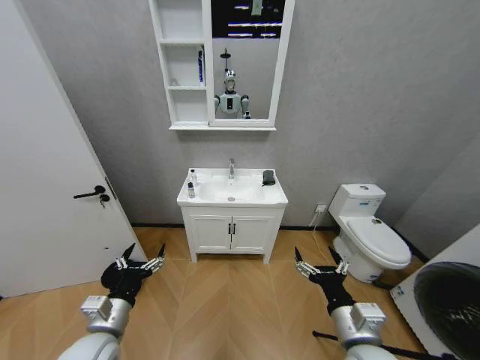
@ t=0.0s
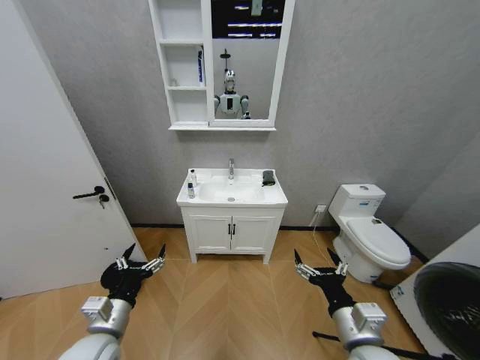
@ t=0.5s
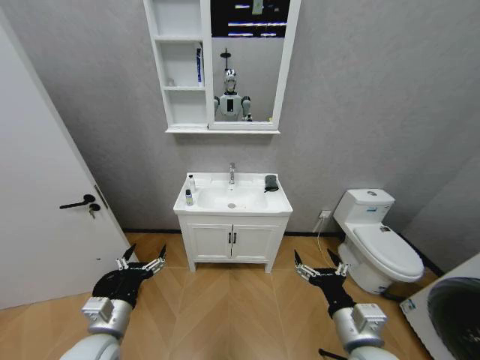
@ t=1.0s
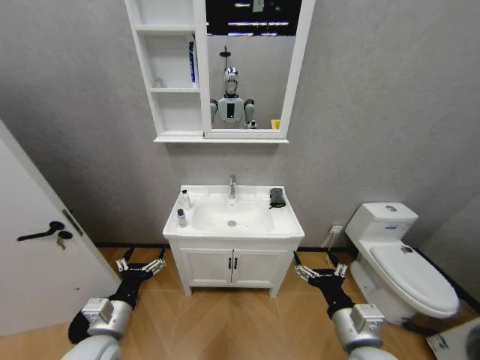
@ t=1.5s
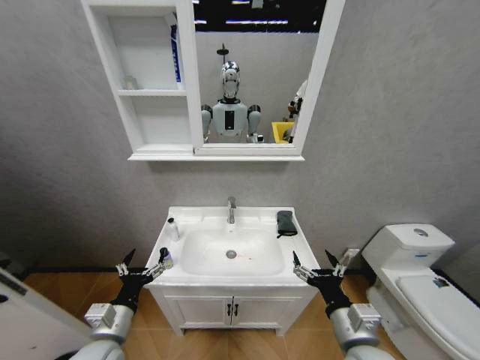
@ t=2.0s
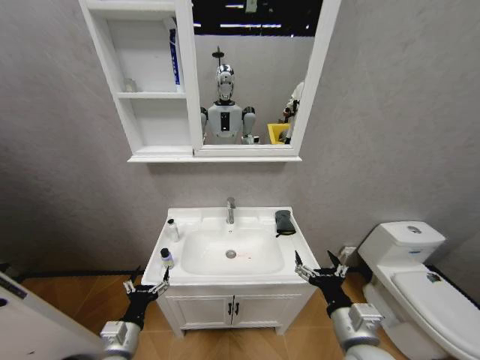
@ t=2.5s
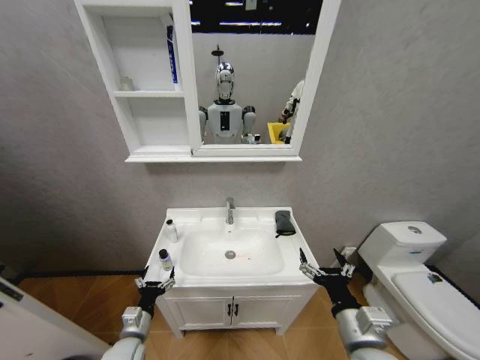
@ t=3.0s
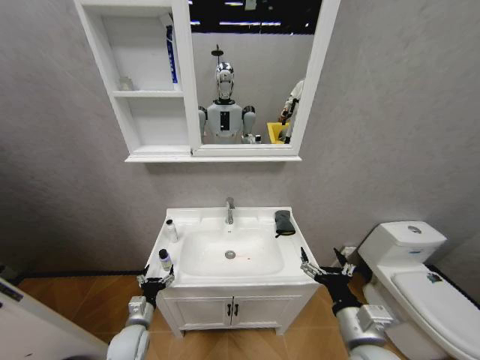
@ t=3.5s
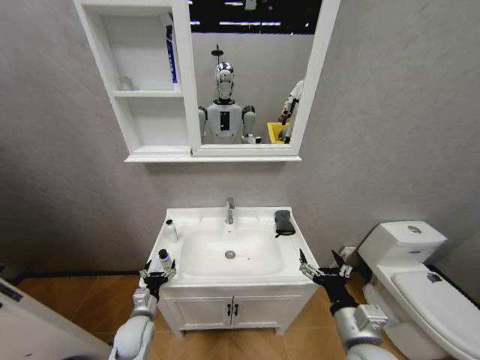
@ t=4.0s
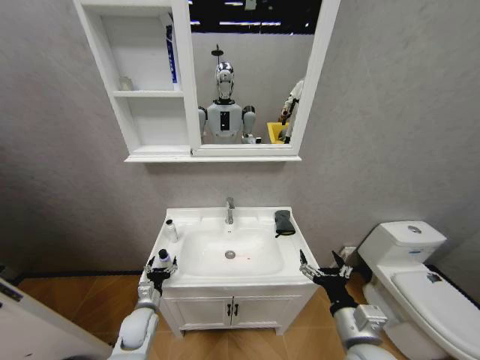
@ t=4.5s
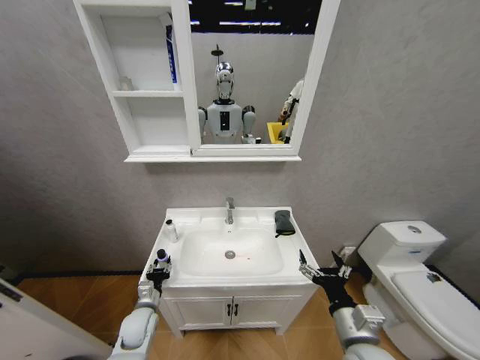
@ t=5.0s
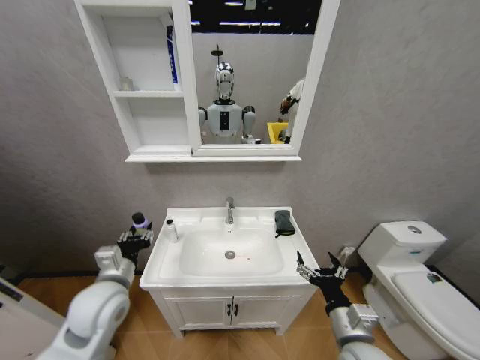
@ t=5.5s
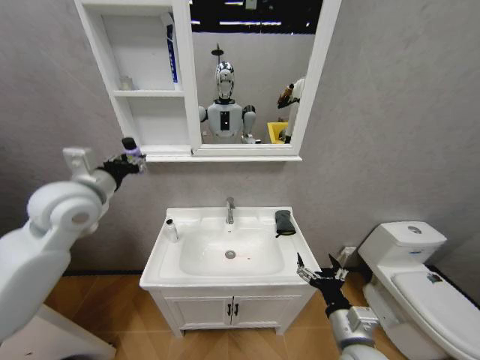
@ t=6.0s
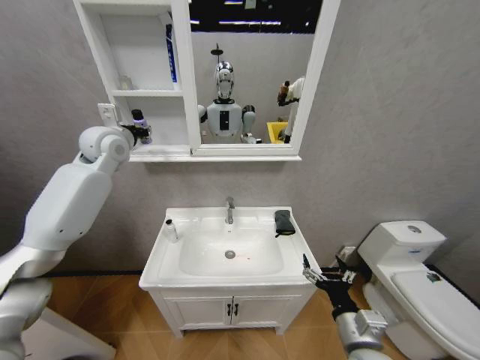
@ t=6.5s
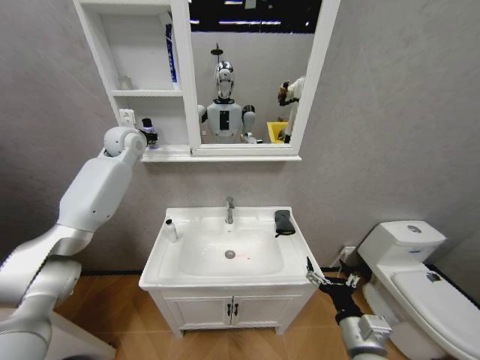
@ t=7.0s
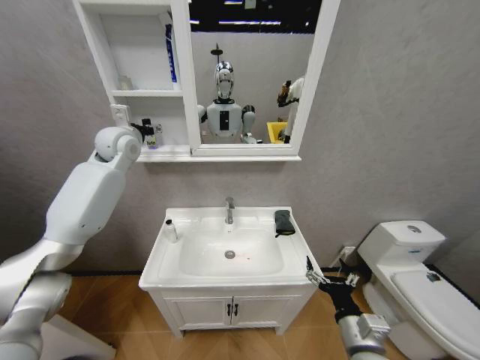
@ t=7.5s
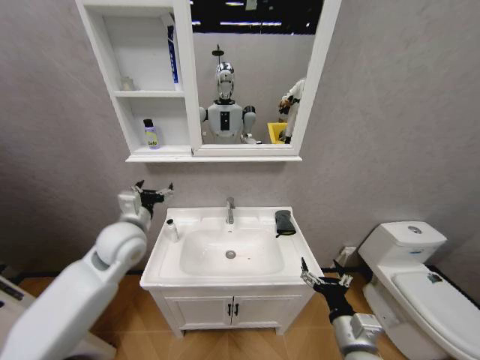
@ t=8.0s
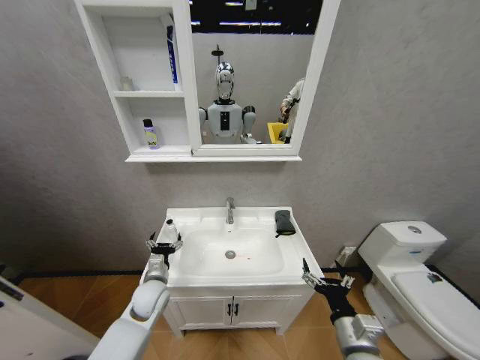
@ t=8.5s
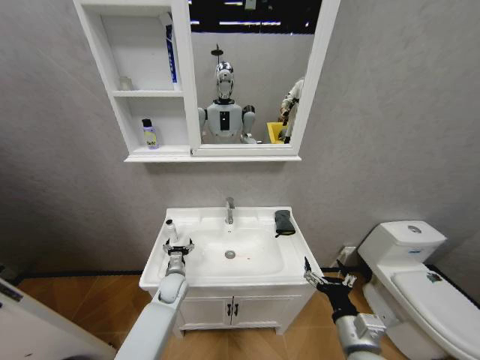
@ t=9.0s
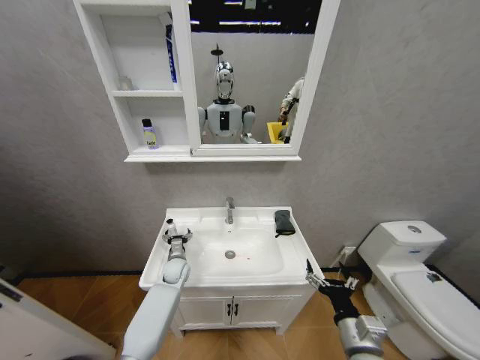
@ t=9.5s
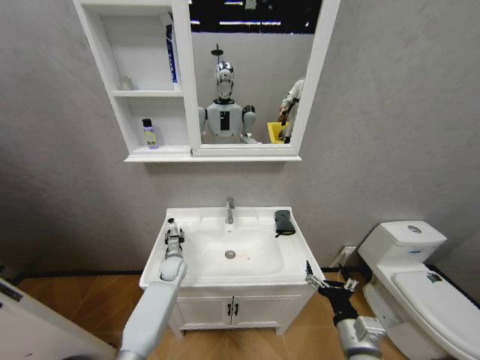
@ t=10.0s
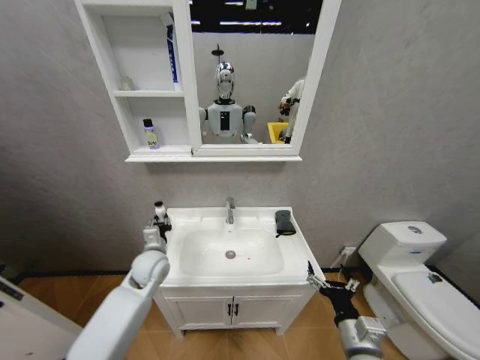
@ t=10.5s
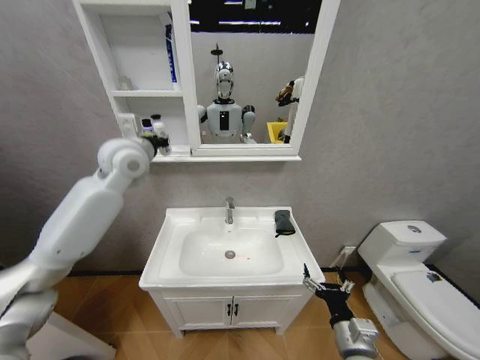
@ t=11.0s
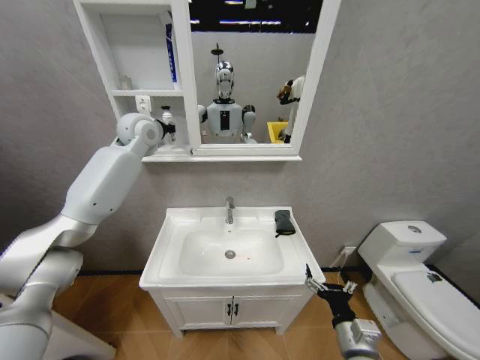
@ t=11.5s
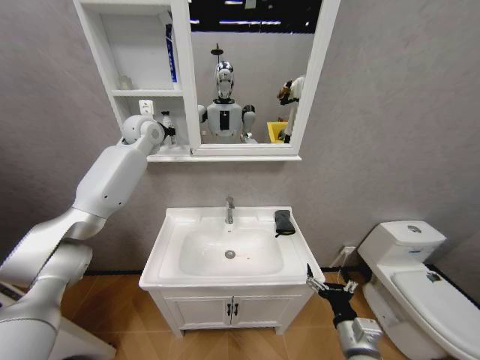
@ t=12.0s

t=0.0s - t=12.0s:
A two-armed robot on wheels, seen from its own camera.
Task of the whole recording: Move facial cleanser and shampoo from washbasin to cabinet, then wipe washbasin with towel.
t=2.0s - t=4.0s: The left gripper travels downward and forward by about 15 cm.
t=4.0s - t=6.0s: The left gripper travels upward by about 40 cm, and closes its fingers.
t=6.0s - t=8.0s: The left gripper travels downward and to the right by approximately 10 cm, reaches roughly 25 cm forward, then returns, and opens up.
t=8.0s - t=10.0s: The left gripper heads downward, covering about 30 cm, and closes up.
t=10.0s - t=12.0s: The left gripper is displaced upward by about 50 cm.

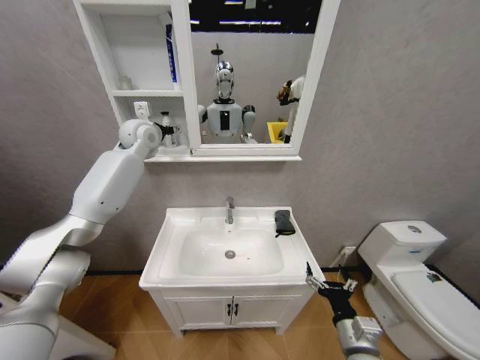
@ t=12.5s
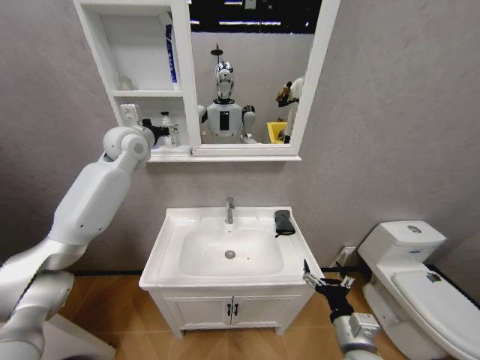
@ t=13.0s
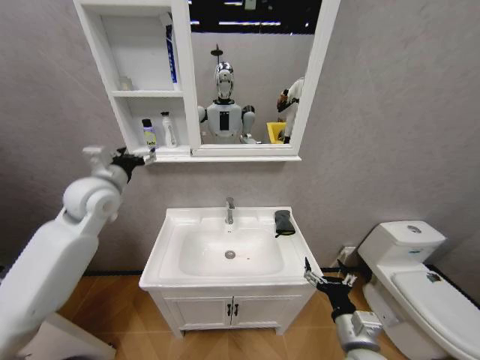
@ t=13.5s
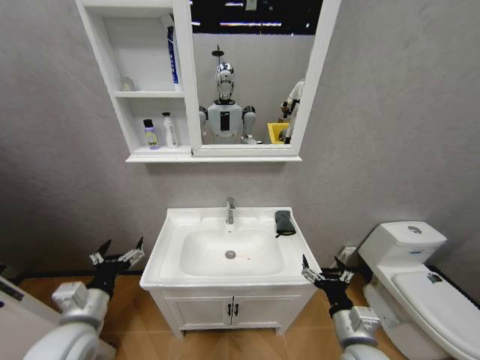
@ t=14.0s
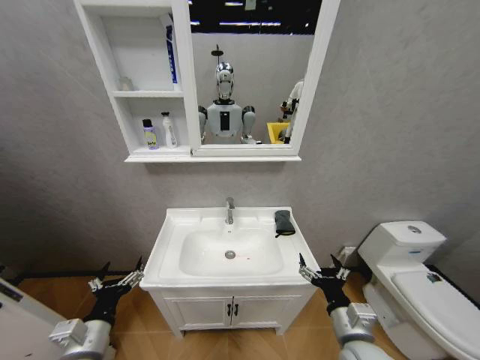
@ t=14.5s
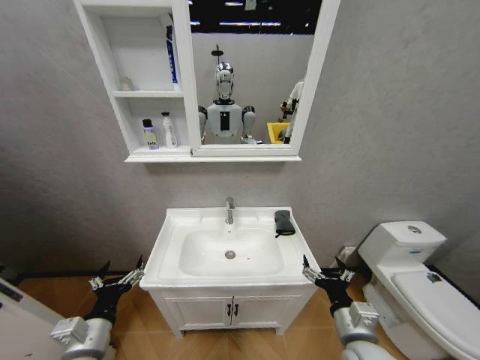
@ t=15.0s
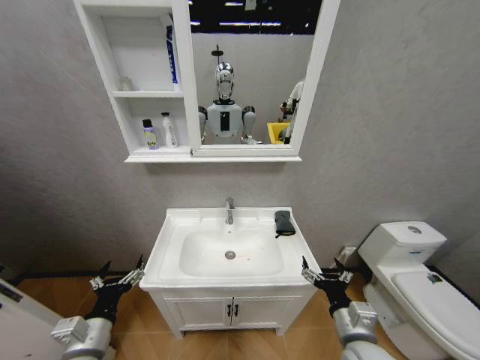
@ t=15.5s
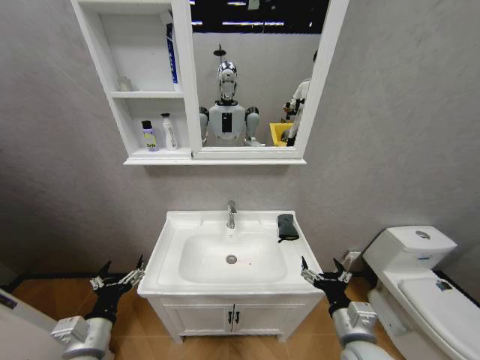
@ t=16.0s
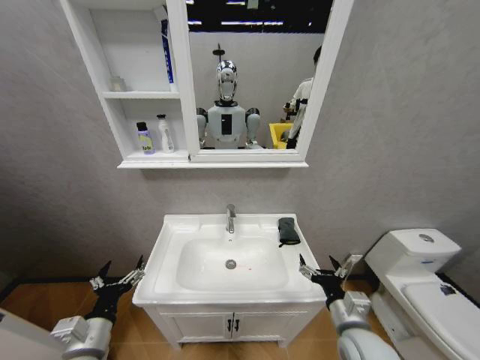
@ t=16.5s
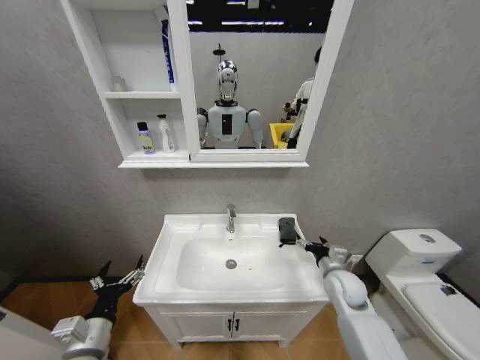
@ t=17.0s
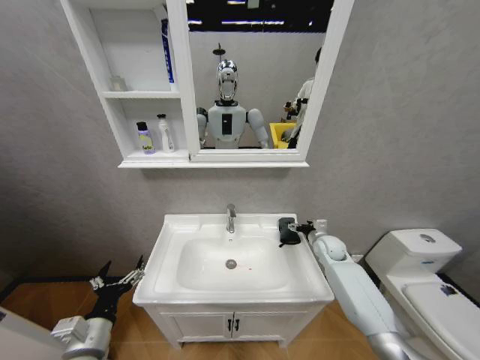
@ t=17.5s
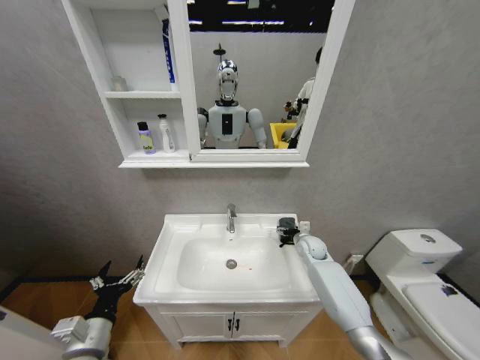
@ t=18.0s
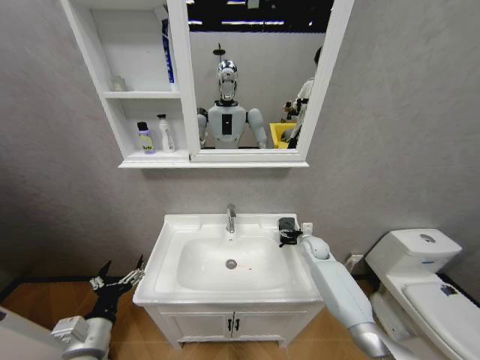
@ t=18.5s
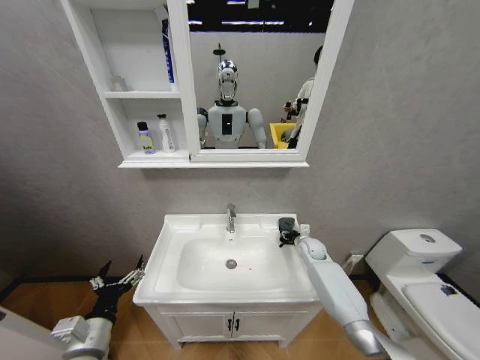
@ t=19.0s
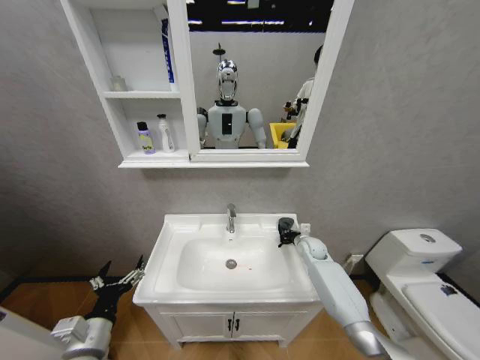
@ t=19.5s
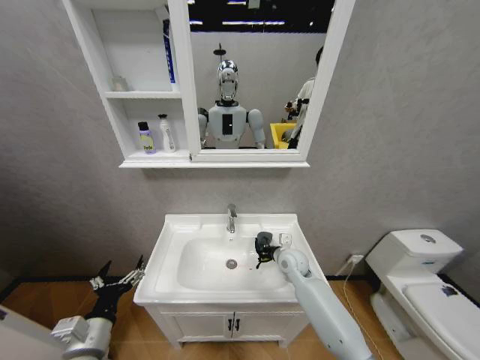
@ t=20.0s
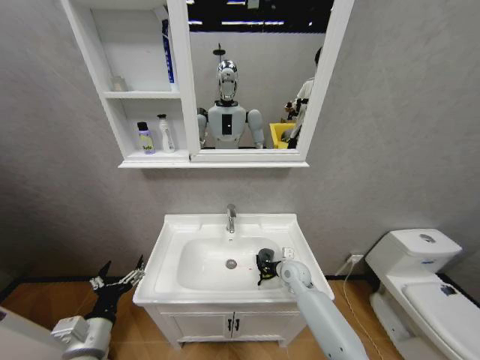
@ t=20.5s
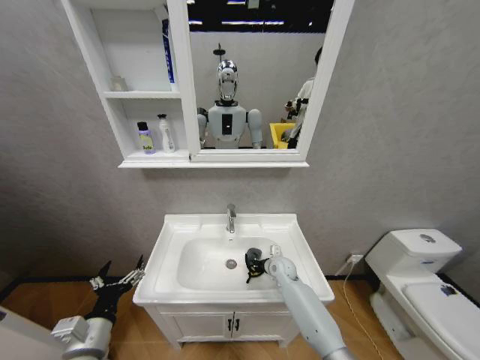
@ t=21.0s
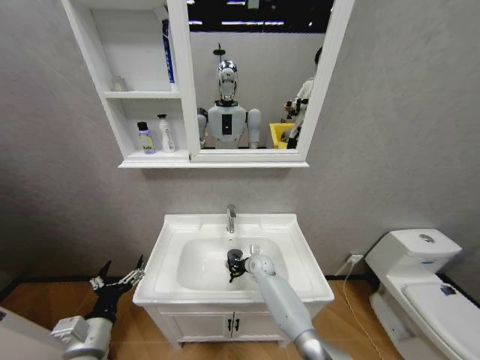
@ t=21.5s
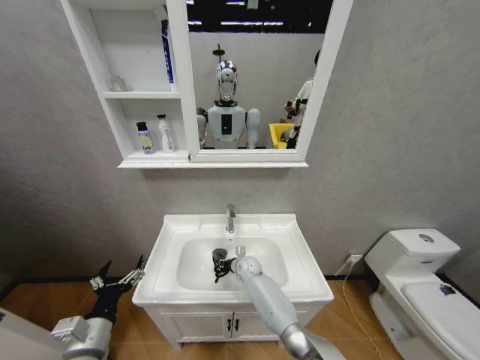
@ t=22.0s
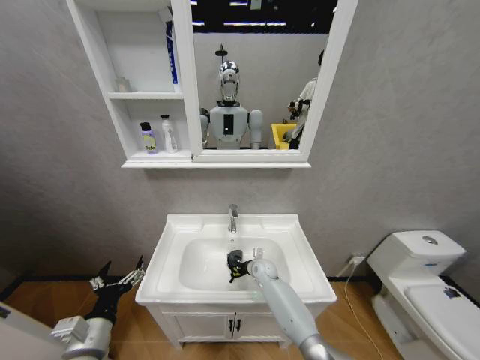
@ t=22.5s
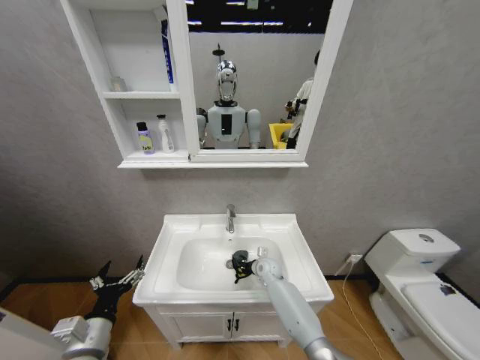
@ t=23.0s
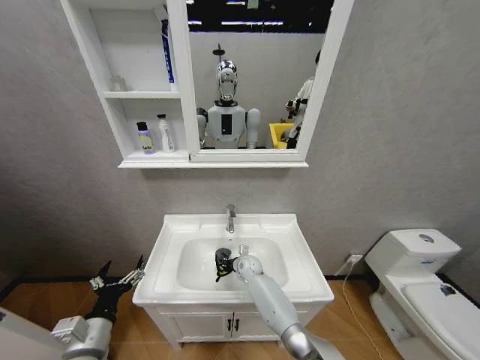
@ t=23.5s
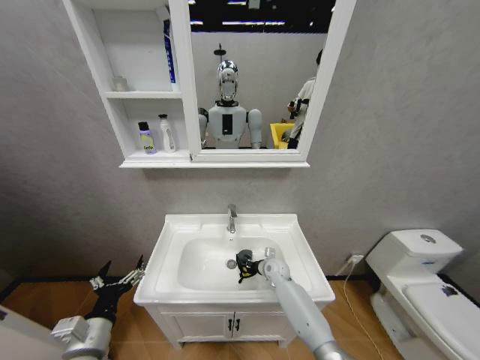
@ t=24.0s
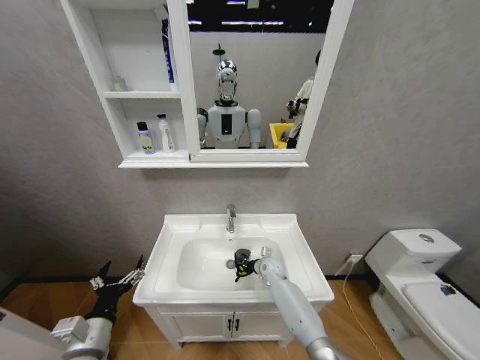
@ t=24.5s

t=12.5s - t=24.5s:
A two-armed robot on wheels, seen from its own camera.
Task of the whole recording: Move facial cleanser and shampoo from washbasin to cabinet, then wipe washbasin with towel.
t=12.5s - t=14.5s: The left gripper heads backward and downward, covering about 50 cm.
t=16.5s - t=18.5s: The right gripper goes roughly 30 cm forward.
t=18.5s - t=20.5s: The right gripper heads to the left and backward, covering some 15 cm, and closes its fingers.
t=20.5s - t=22.5s: The right gripper shifts about 10 cm to the left, downward and forward.
t=22.5s - t=24.5s: The right gripper moves some 5 cm to the left and comes back.

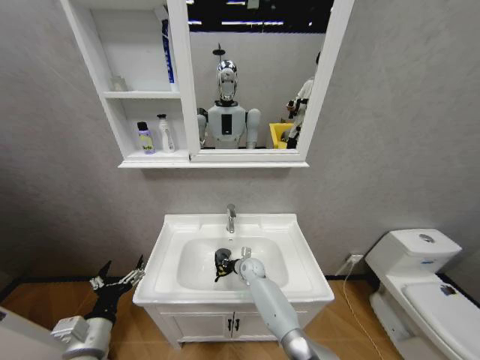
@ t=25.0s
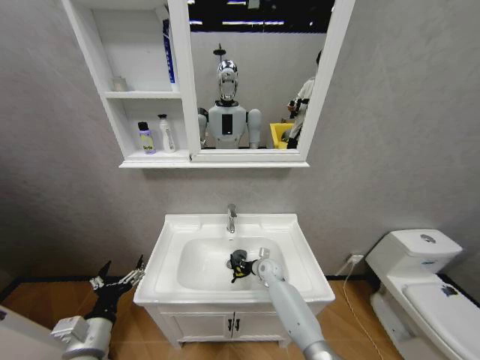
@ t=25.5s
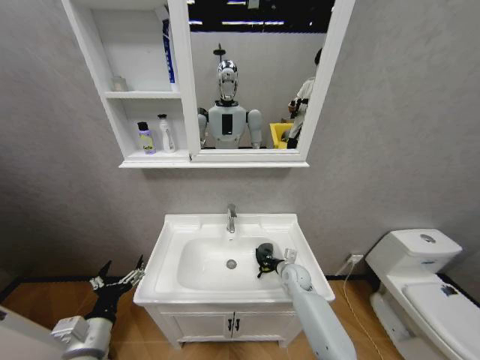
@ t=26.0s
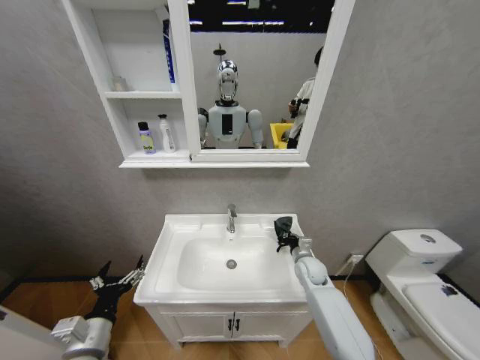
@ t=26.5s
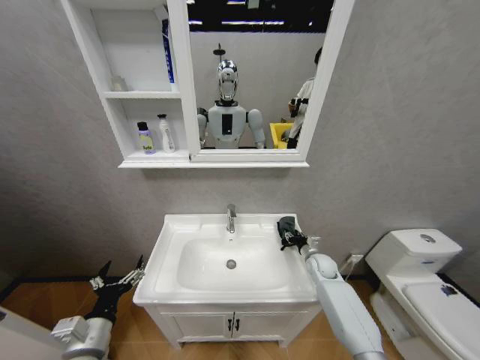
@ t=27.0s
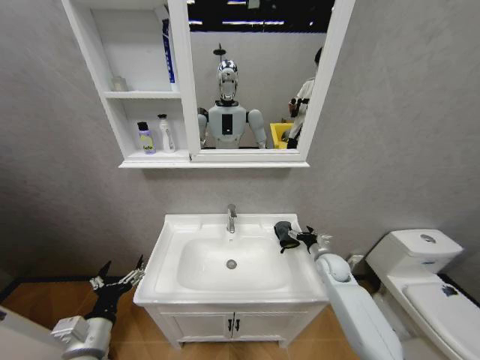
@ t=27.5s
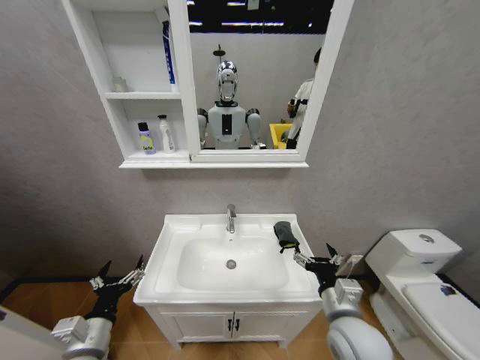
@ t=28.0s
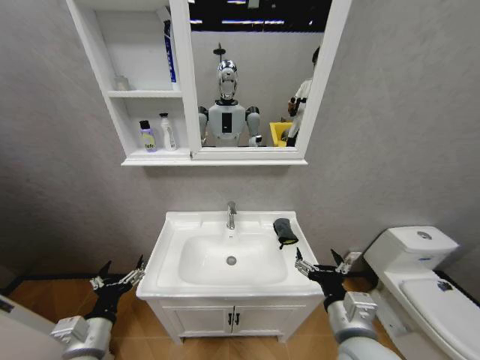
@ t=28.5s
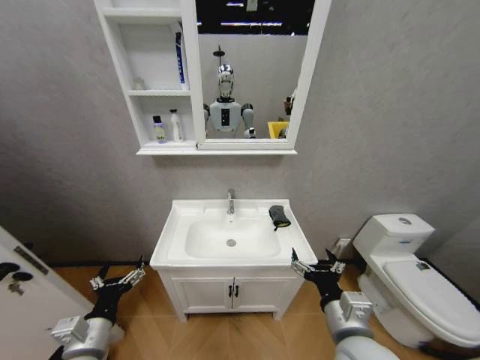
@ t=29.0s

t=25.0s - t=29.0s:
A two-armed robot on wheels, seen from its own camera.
Task of the whole recording: Move facial cleanser and shampoo from washbasin to cabinet, then wipe washbasin with towel.
t=25.0s - t=27.0s: The right gripper travels to the right by roughly 25 cm.
t=27.0s - t=29.0s: The right gripper shifts approximately 35 cm backward, upward and to the left, and opens.
